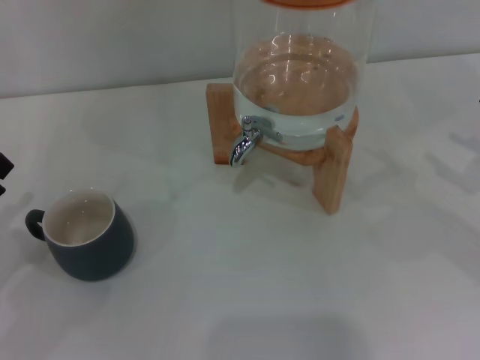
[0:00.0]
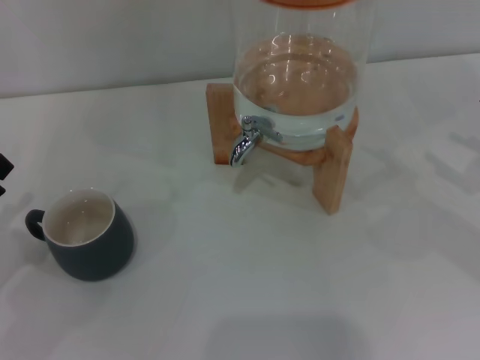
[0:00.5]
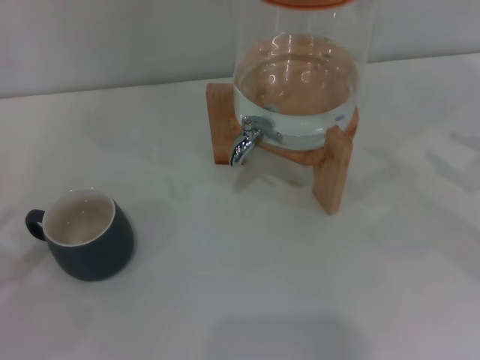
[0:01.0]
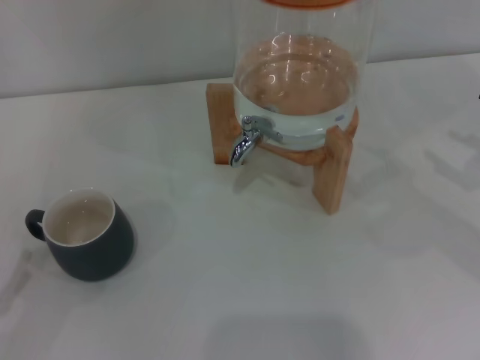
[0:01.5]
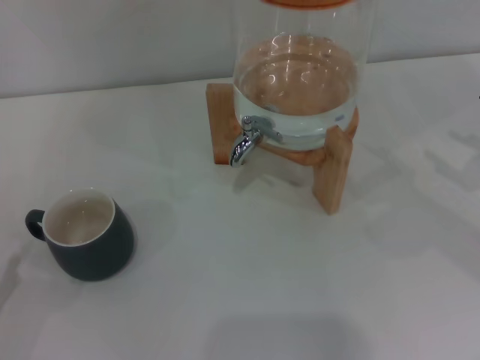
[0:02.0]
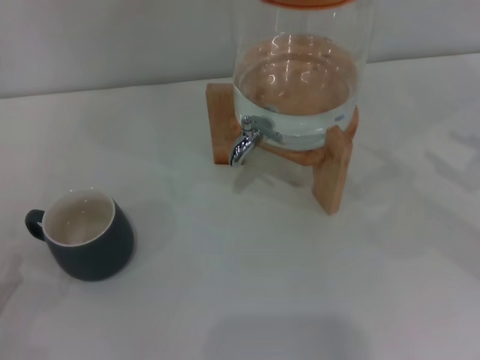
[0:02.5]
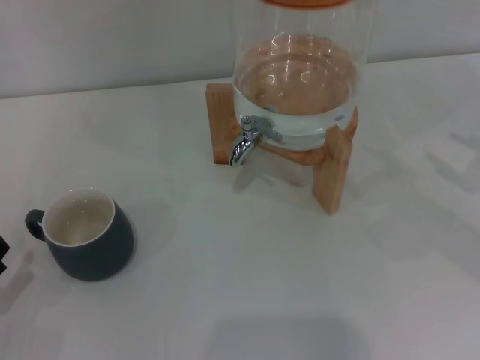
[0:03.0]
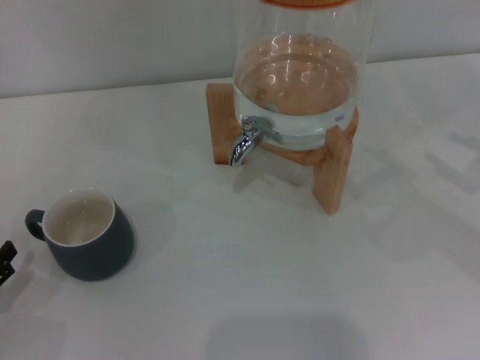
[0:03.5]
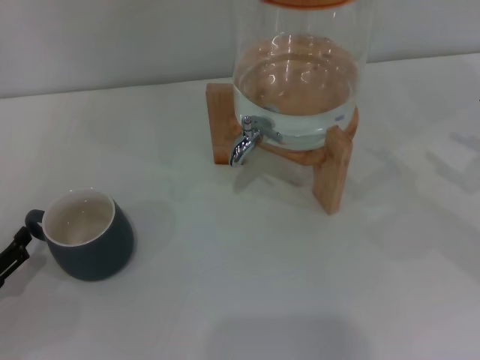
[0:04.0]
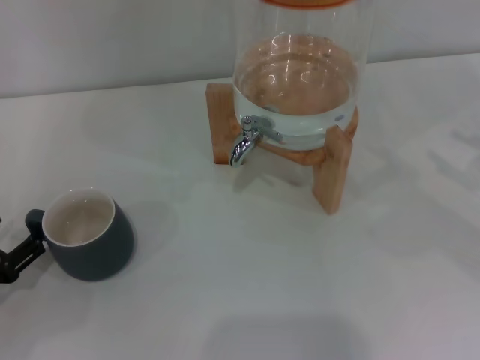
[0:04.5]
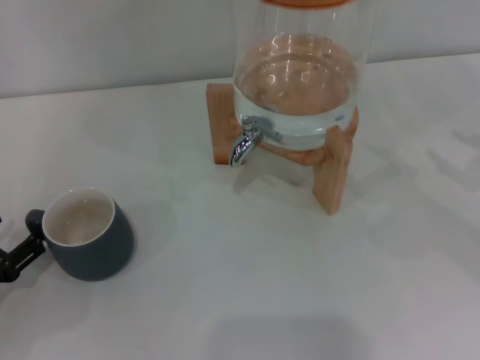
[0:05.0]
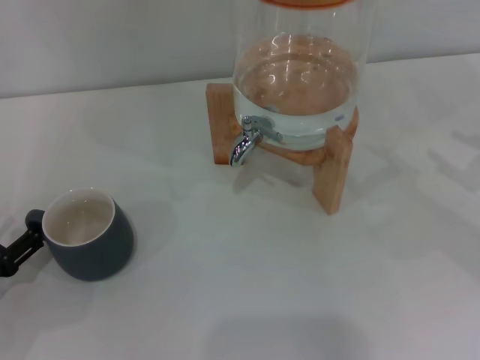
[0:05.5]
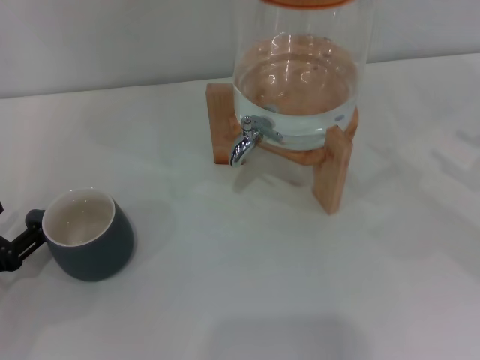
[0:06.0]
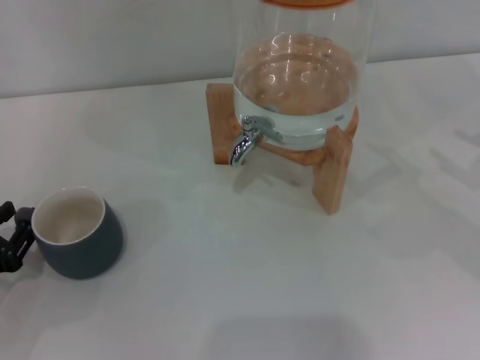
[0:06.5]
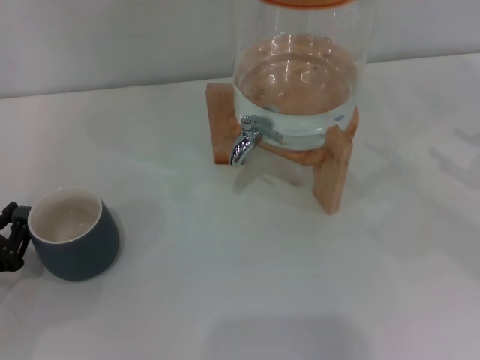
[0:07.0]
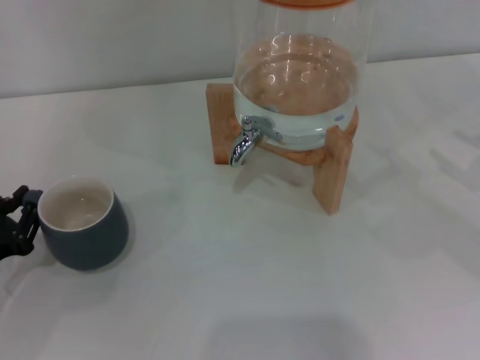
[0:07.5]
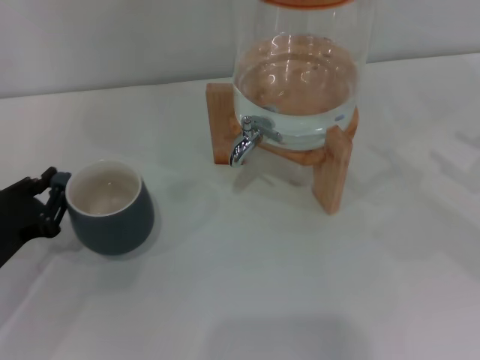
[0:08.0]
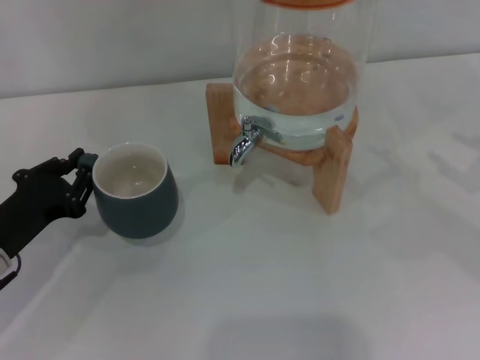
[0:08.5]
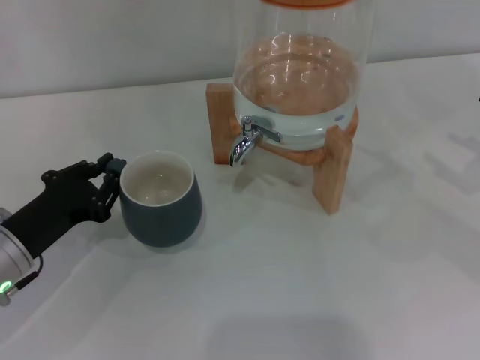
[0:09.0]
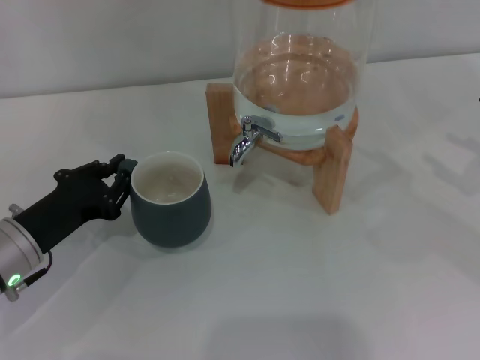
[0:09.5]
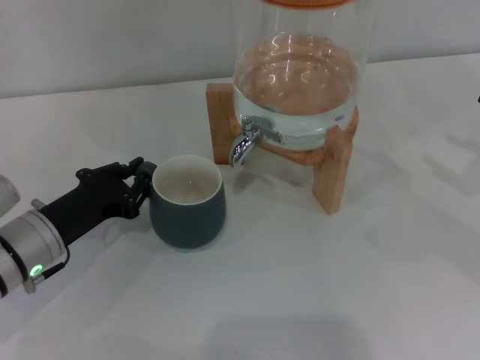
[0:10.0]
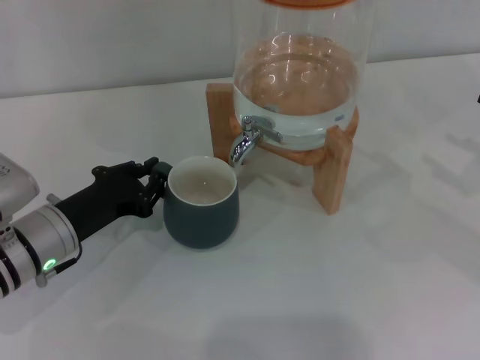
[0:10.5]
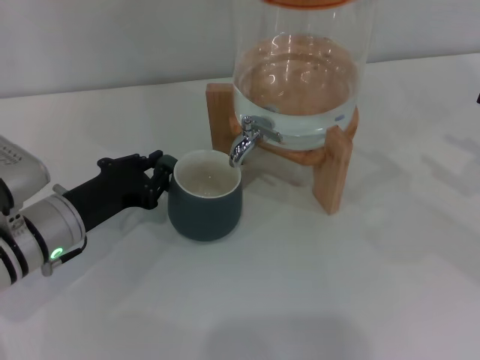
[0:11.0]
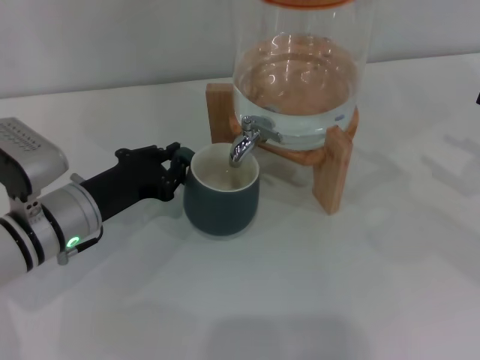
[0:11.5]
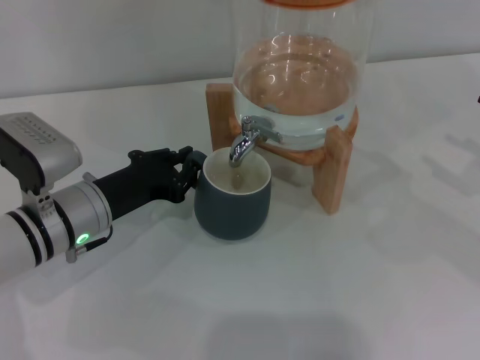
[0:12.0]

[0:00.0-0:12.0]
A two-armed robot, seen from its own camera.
Task of the whole recording: the left gripper pick up the black cup and place it horizontally under the faucet, the right gripper turn on the faucet to fill the cup, and then turn off the faucet.
0:02.0 to 0:04.0: The left gripper heads forward, covering about 5 cm.
0:06.0 to 0:08.0: The left gripper closes.
0:08.0 to 0:10.0: The left gripper goes about 5 cm to the right.
0:10.0 to 0:12.0: The left gripper moves some 5 cm.

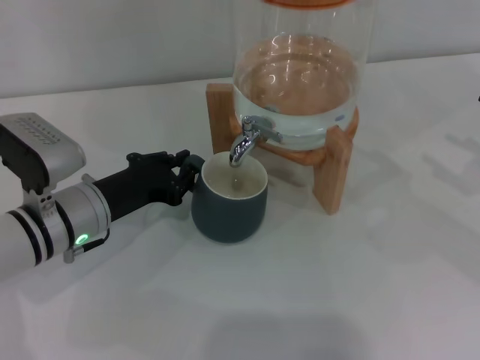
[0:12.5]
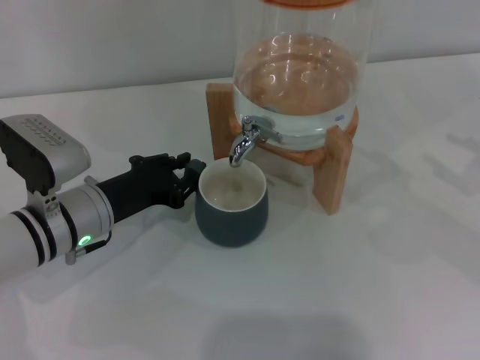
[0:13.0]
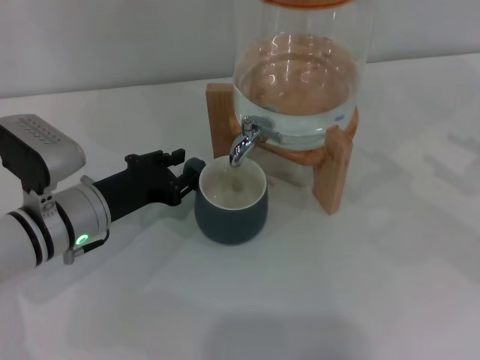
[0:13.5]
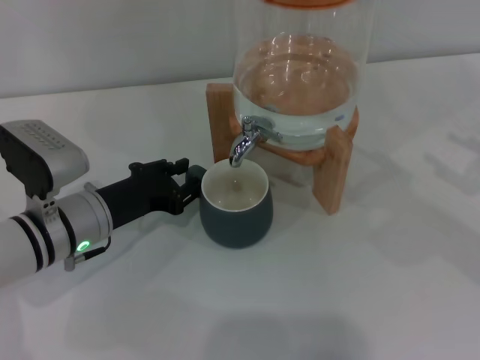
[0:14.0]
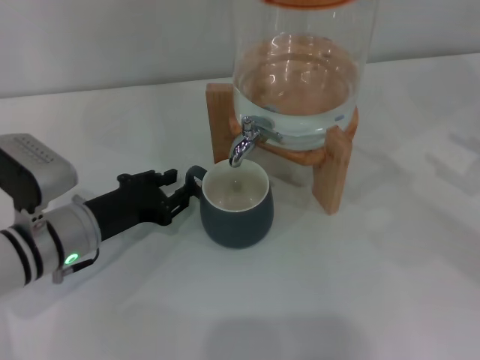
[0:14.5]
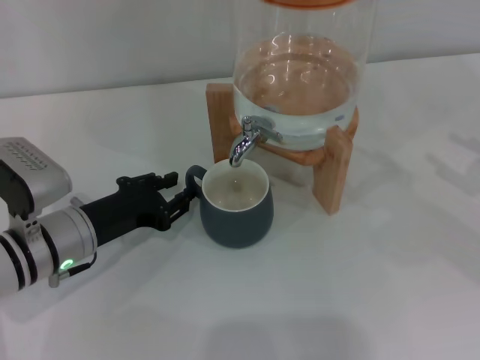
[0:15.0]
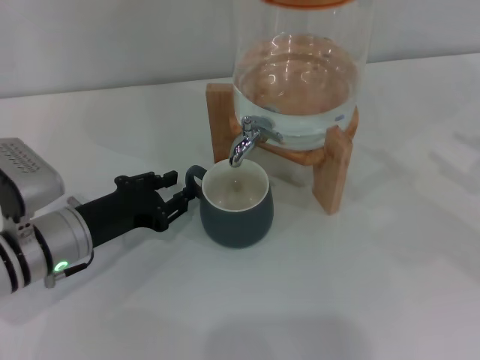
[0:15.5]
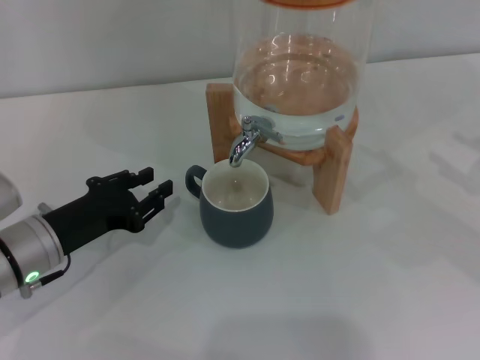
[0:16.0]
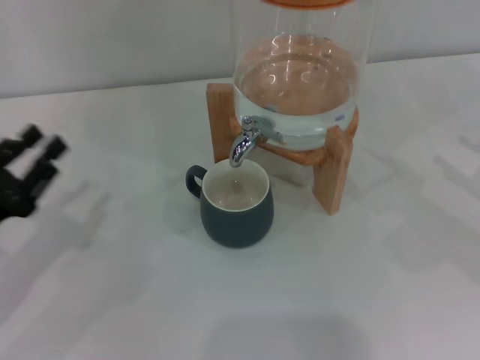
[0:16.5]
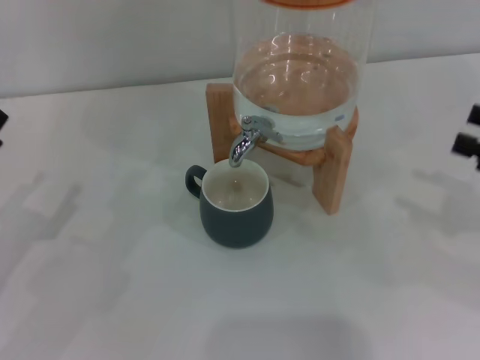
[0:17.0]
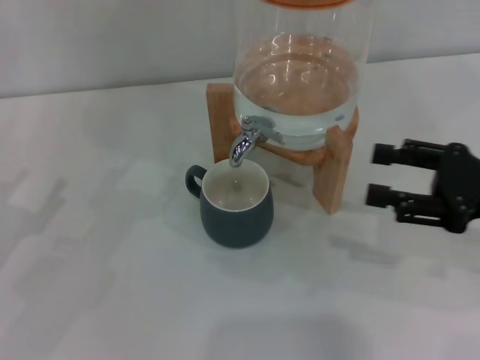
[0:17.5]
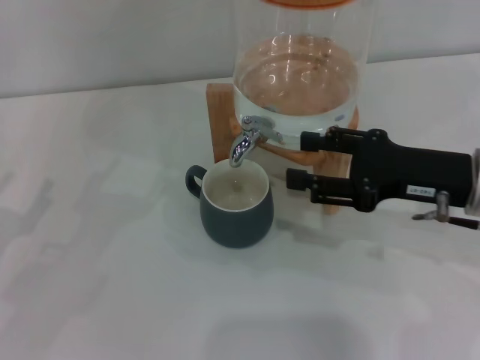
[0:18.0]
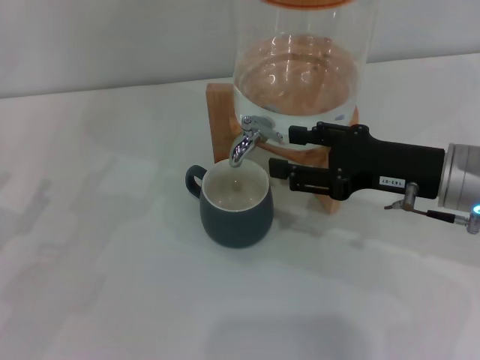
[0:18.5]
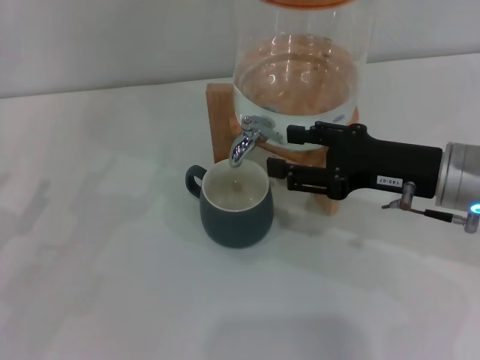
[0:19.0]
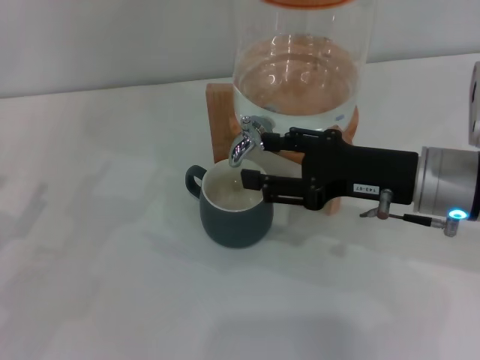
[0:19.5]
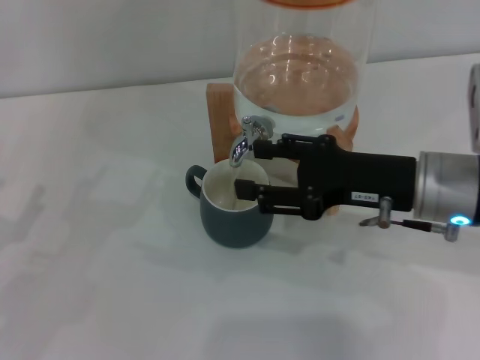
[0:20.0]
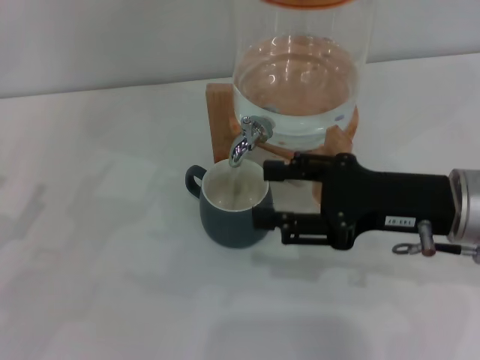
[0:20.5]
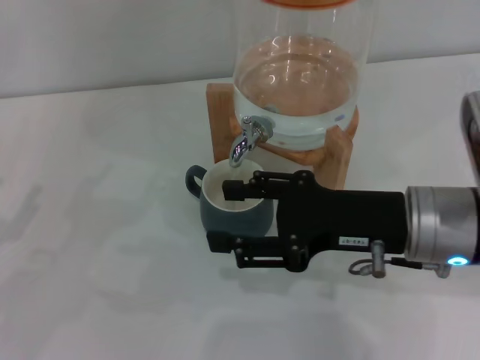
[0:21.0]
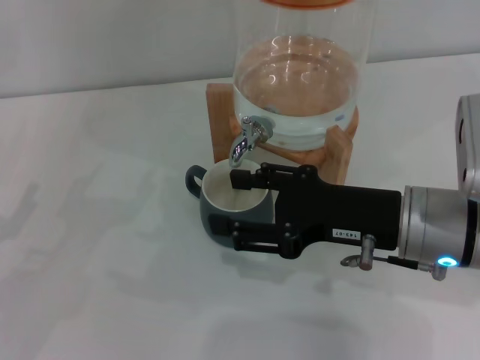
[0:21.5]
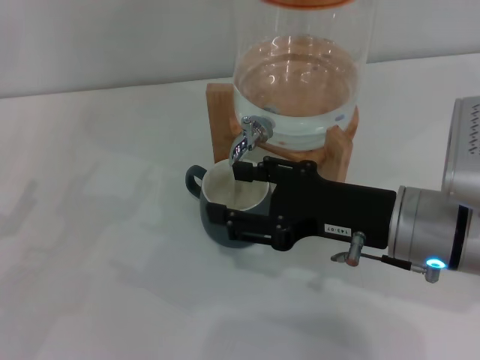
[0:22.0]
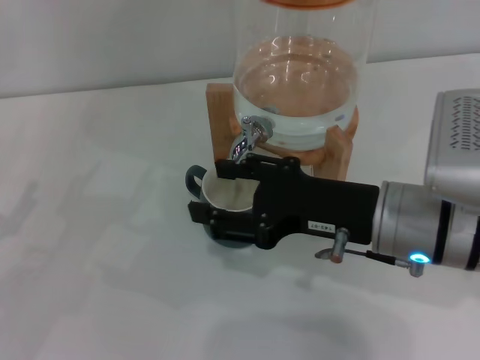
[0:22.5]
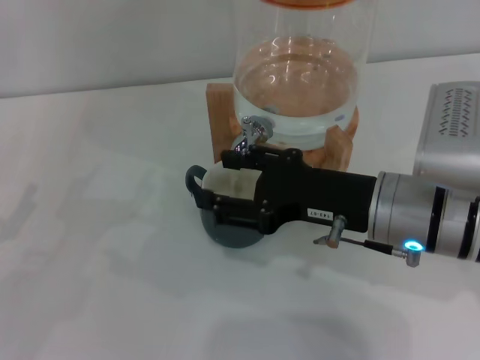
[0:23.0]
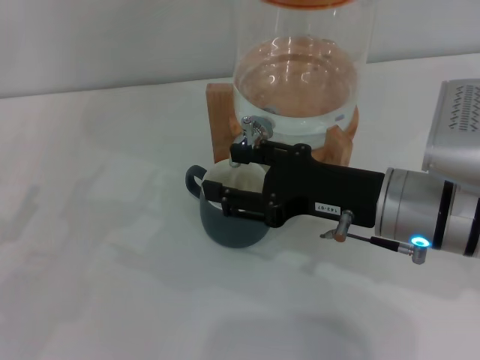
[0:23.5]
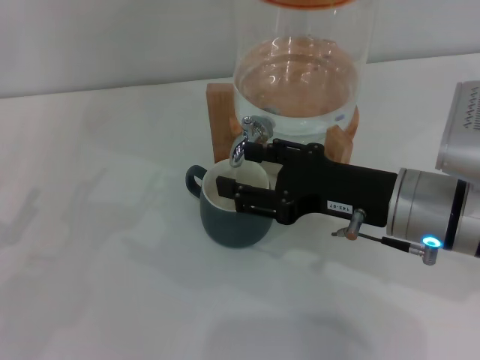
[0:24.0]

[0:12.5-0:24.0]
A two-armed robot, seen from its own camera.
Task of the whole recording: the left gripper pick up the black cup and place it horizontally under the faucet, the right gripper turn on the faucet to fill the cup, and then turn off the faucet.
Step, 0:12.5 to 0:16.0: Move the cup beneath the water dispenser nozzle with the left gripper.
Step, 0:16.5 to 0:20.5: Open the dispenser valve and fill the cup with water with the right gripper.
0:12.5 to 0:14.5: The grippers move only a little.
0:14.5 to 0:16.5: The left gripper goes approximately 15 cm to the left and backward.
0:16.5 to 0:18.5: The left gripper opens. Meanwhile the right gripper heads to the left, covering roughly 20 cm.
0:18.5 to 0:20.0: There are only small adjustments of the grippers.
0:20.0 to 0:24.0: The grippers stay close to where they were, moving slightly.

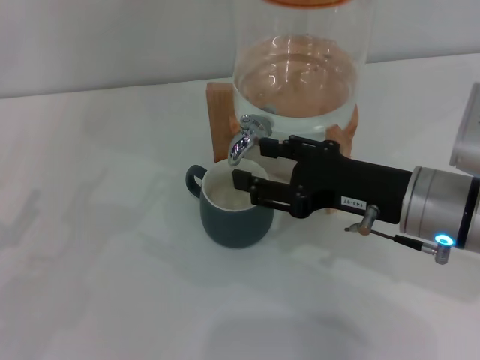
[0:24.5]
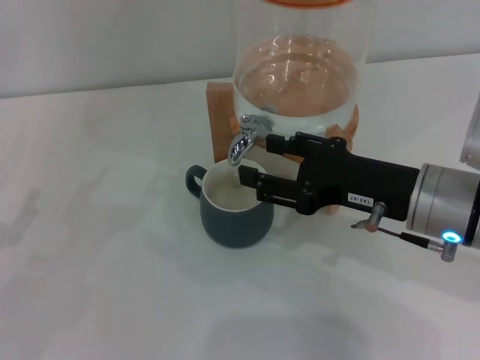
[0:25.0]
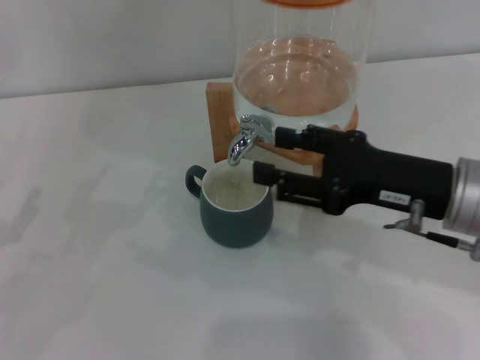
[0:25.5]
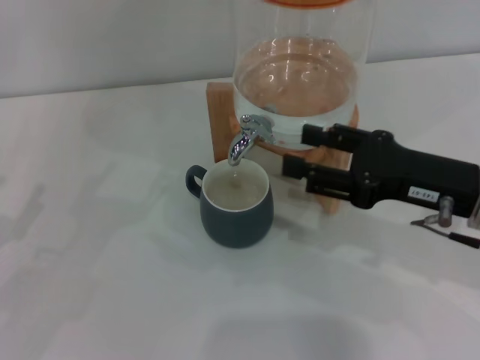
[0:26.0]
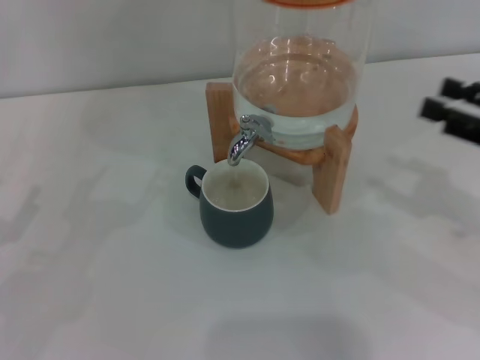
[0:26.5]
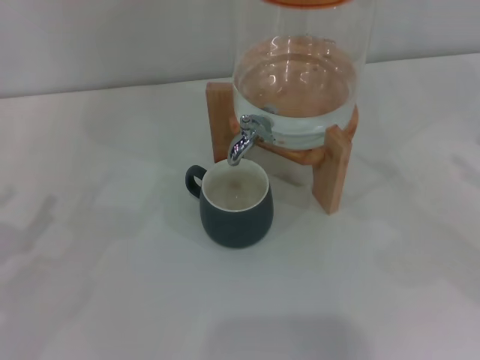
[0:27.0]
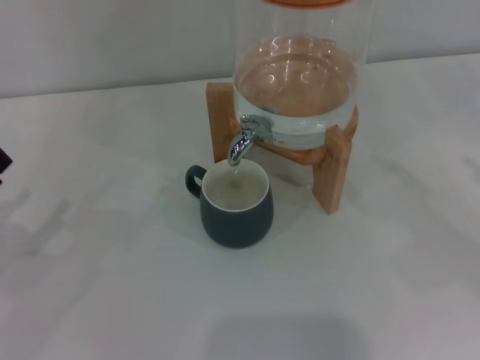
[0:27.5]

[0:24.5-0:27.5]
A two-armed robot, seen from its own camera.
Task of the whole recording: the left gripper pick up the black cup and place it horizontally under the faucet, the right gripper turn on the faucet to fill the cup, and then turn off the faucet.
0:24.5 to 0:26.0: There are only small adjustments of the grippers.
0:26.0 to 0:27.5: The right gripper moves to the right, approximately 20 cm.
